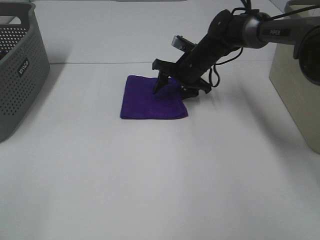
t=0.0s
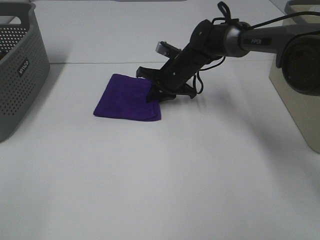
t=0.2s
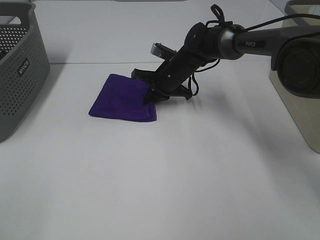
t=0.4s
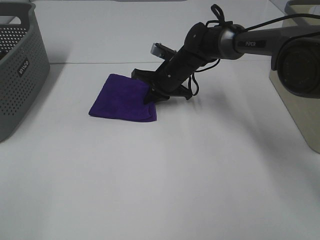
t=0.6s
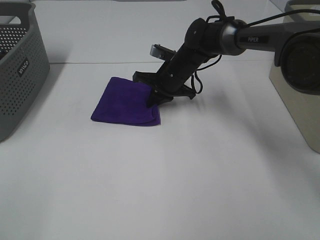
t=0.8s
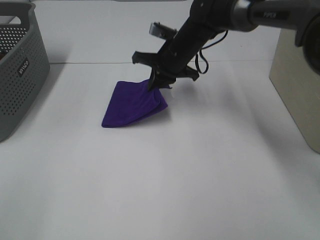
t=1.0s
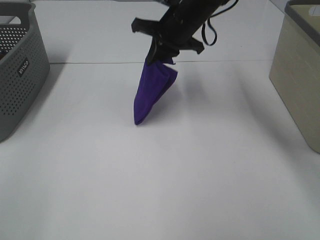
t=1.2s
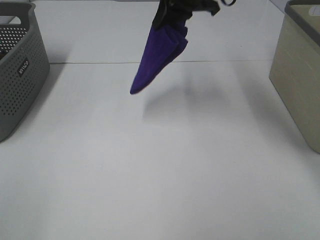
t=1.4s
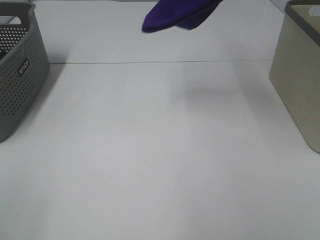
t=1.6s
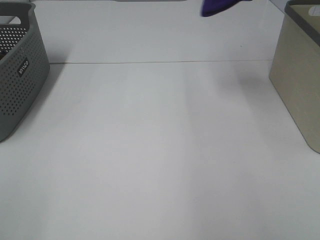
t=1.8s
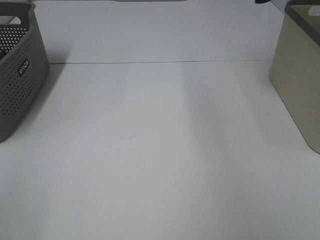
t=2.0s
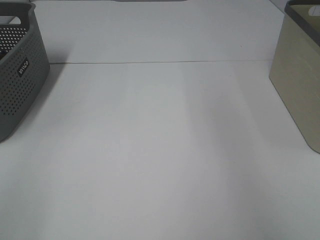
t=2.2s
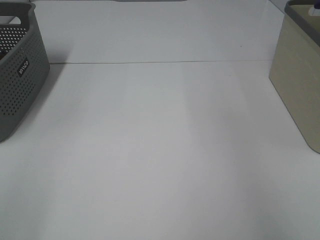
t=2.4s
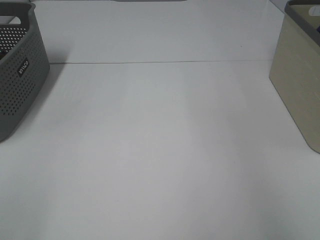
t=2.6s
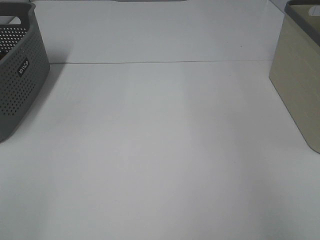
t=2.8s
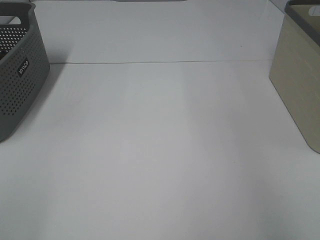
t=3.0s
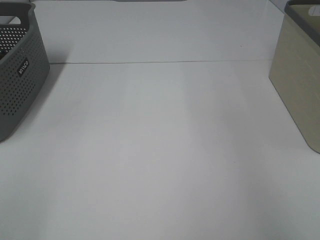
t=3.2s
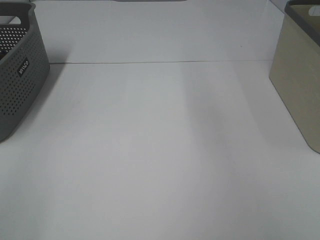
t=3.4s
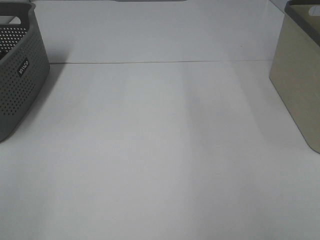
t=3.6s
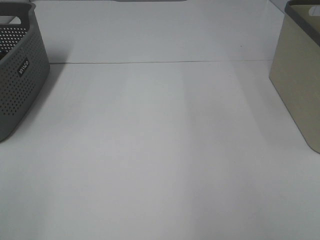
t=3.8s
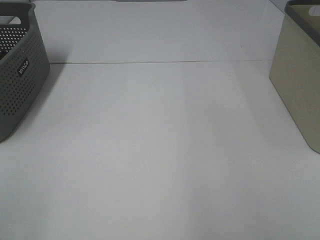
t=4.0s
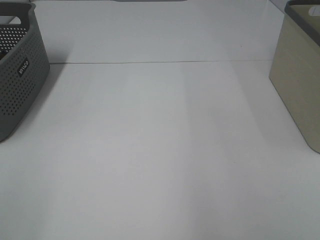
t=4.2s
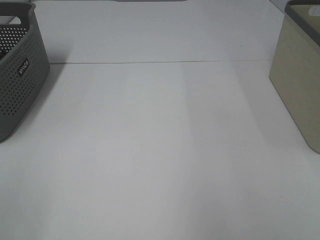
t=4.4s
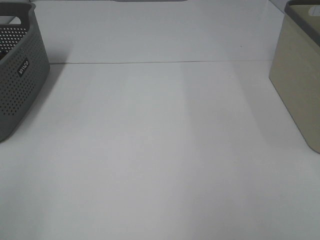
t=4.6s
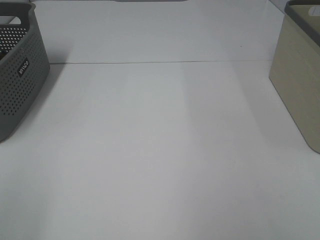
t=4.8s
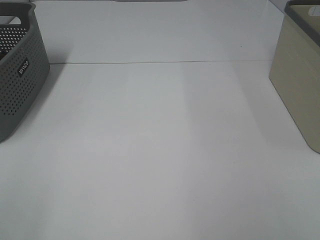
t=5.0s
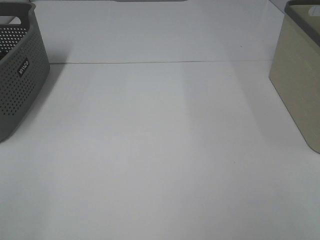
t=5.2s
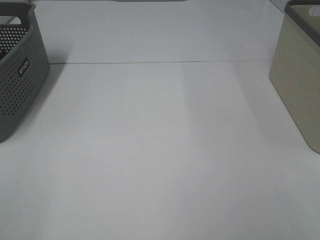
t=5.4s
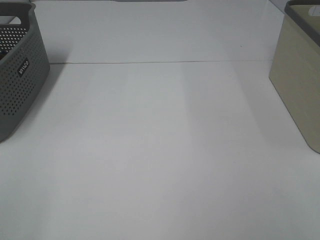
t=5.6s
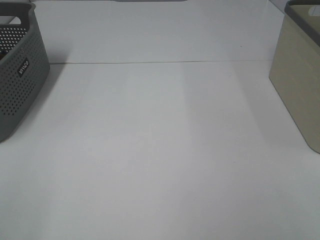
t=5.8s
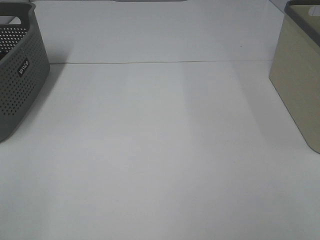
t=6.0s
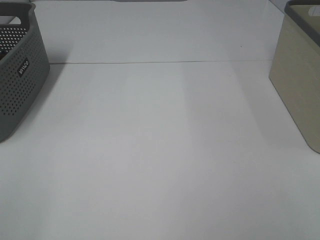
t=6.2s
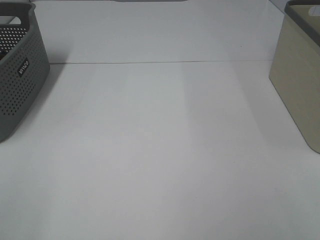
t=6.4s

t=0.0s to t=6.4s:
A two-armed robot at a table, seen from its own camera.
Step, t=0.4s to t=3.0s: Right hand: place the purple towel in right basket.
t=0.0s to t=1.6s: The right gripper travels upward by about 30 cm, and closes its fingers.
t=1.6s to t=3.2s: The right gripper moves to the right, about 25 cm, and opens.

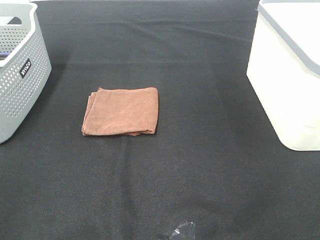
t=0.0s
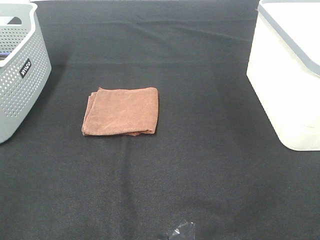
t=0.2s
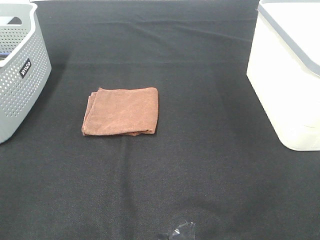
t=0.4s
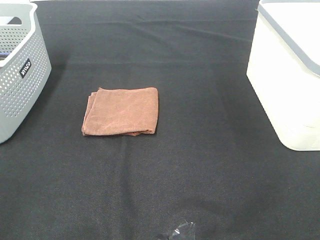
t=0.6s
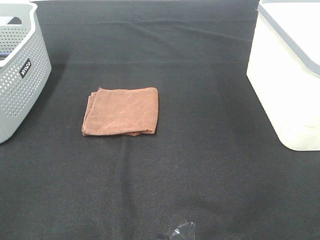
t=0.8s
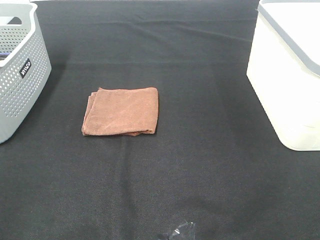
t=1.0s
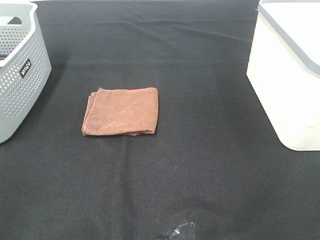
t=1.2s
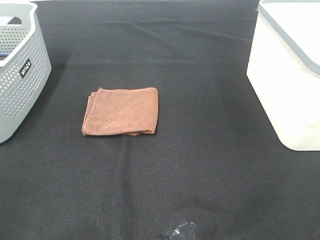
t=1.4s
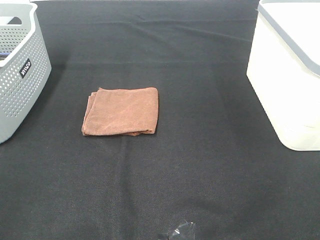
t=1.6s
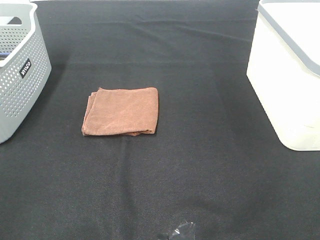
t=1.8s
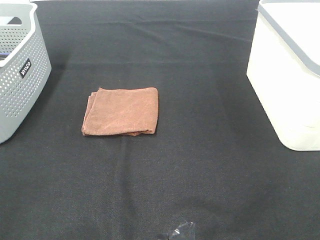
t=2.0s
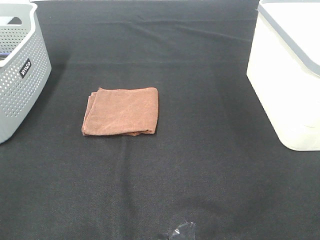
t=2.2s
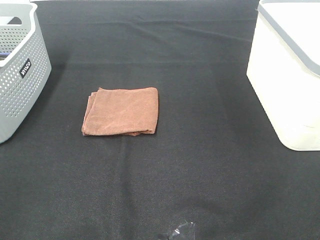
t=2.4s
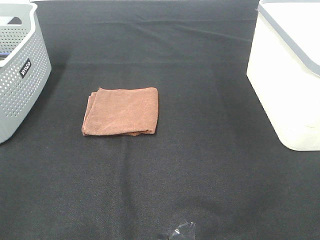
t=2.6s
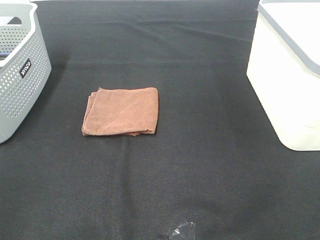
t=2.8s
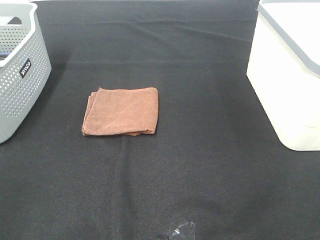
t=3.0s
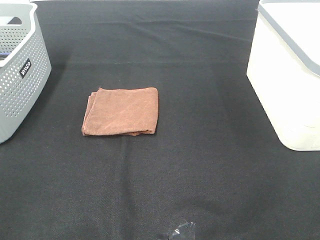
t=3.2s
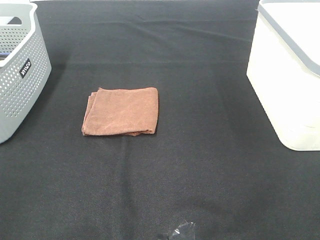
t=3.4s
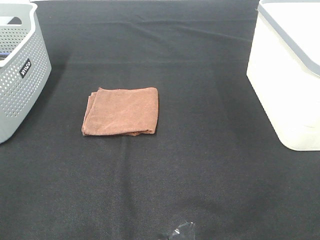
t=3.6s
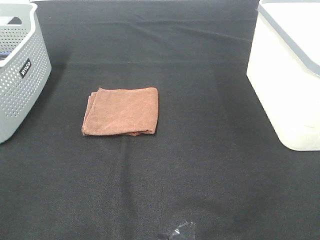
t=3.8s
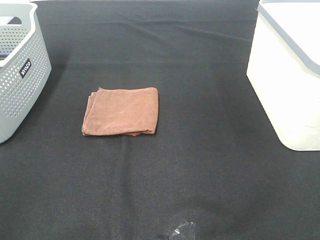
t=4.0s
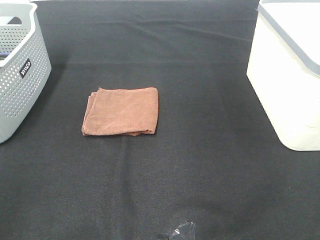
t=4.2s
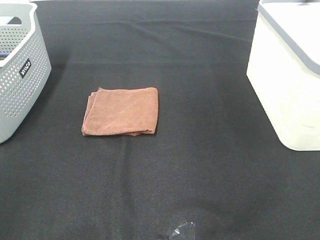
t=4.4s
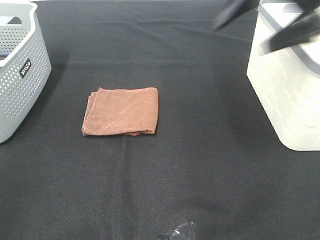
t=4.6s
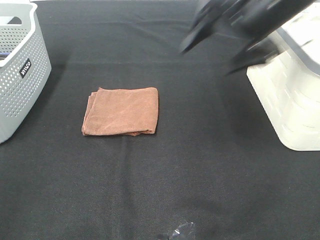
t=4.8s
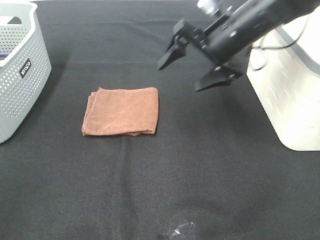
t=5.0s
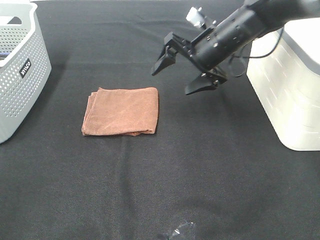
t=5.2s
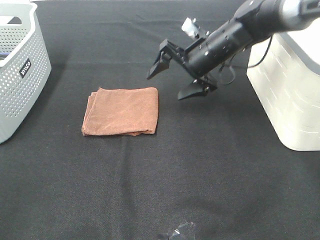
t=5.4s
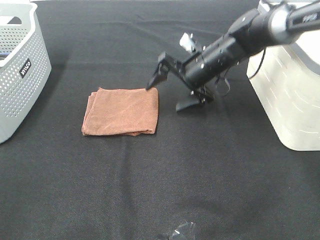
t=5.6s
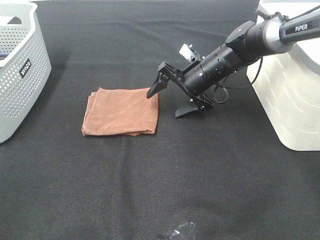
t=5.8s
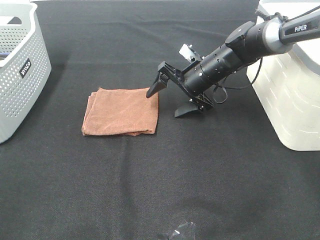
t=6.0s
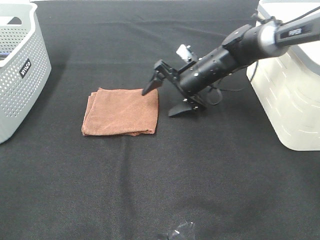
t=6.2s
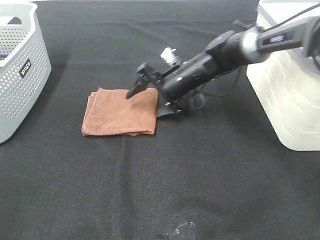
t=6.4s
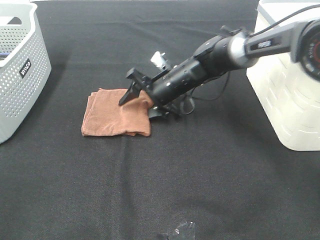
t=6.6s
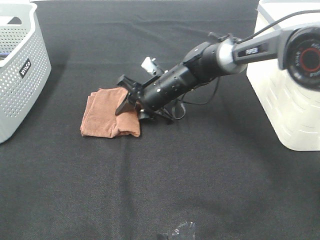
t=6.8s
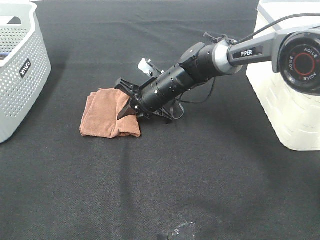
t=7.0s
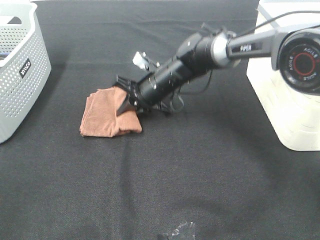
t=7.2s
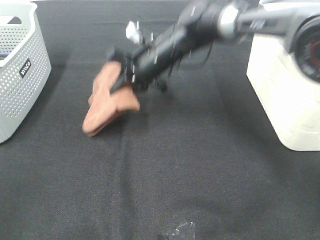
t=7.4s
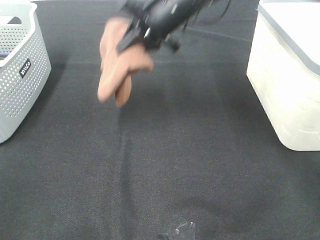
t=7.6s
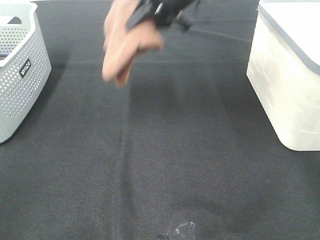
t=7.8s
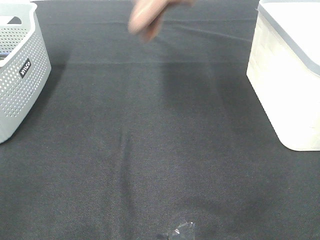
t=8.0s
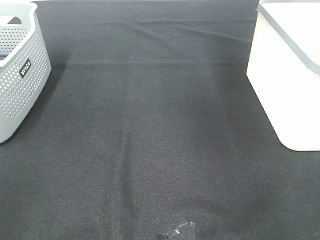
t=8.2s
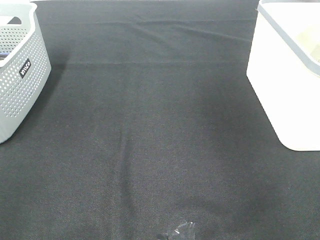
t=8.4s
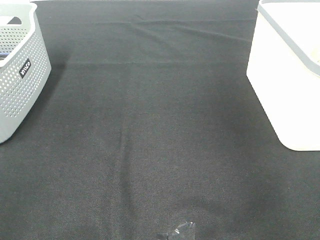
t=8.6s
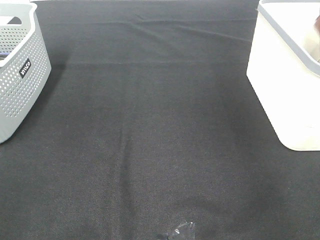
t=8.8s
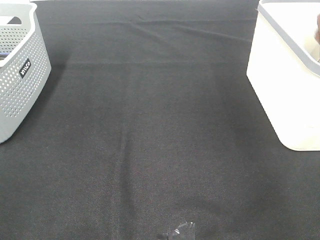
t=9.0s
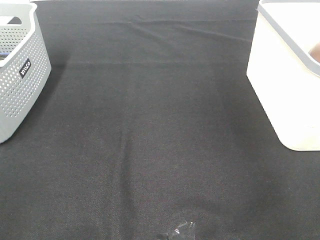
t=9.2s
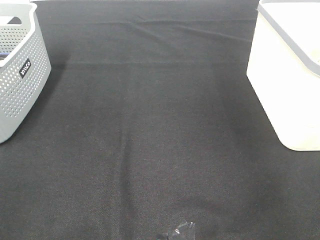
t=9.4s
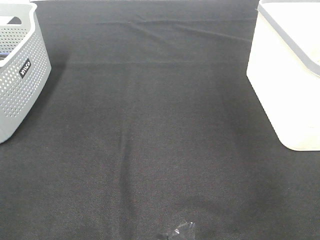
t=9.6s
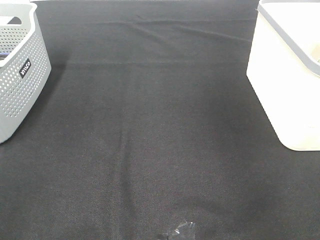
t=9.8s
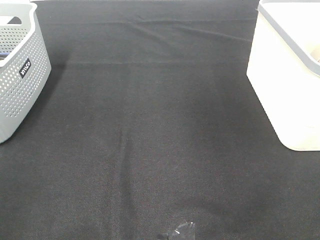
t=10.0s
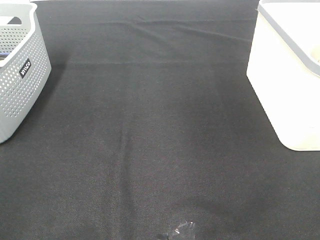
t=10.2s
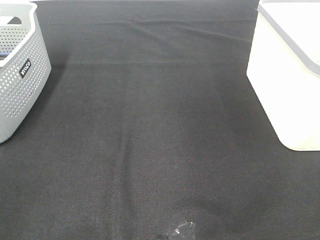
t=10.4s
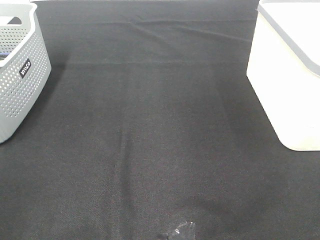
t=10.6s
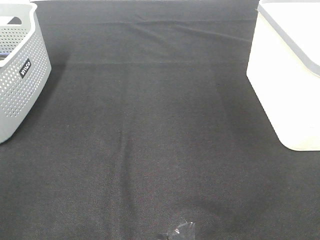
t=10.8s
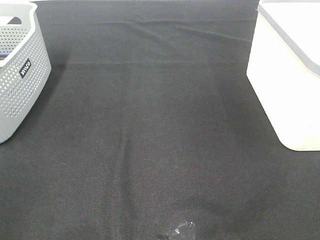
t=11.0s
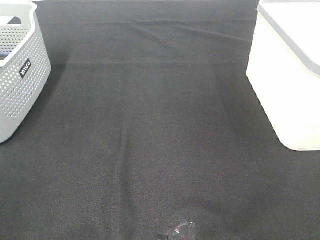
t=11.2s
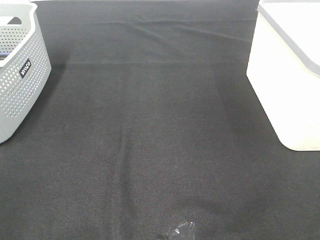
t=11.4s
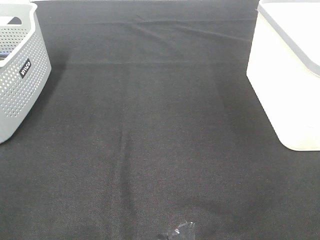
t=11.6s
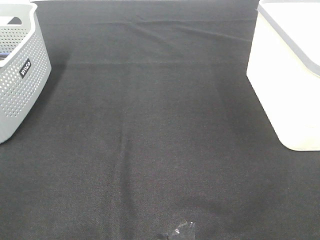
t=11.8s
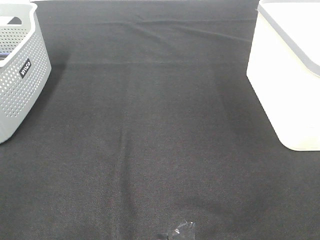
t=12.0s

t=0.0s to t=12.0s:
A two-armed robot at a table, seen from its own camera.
Step, t=0.0s to t=7.2s: Right hand: grab the folded brown towel.
Step, t=7.4s to t=9.2s: Right hand: place the brown towel in right basket.
t=0.0s to t=1.6s: Both grippers stay about where they are.
t=4.4s to t=6.0s: The right gripper moves downward, to the left and forward, approximately 35 cm.
t=6.0s to t=7.6s: The right gripper is displaced upward and to the left by about 15 cm, and closes.
t=7.6s to t=9.0s: The right gripper goes some 35 cm to the right, and opens.

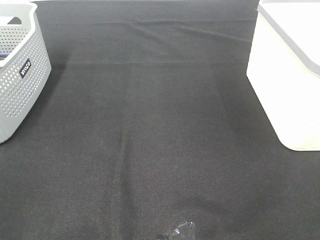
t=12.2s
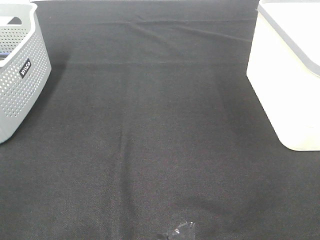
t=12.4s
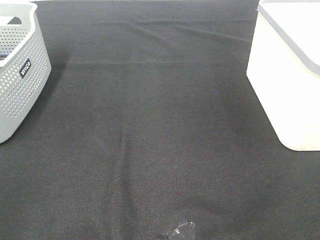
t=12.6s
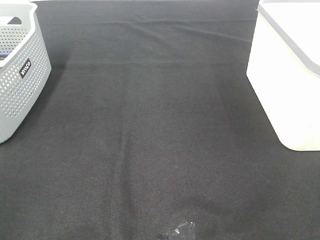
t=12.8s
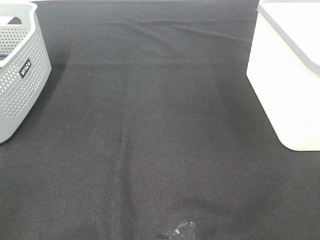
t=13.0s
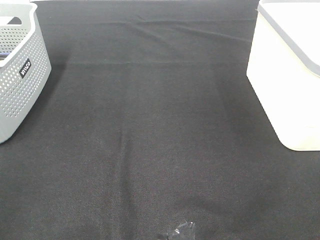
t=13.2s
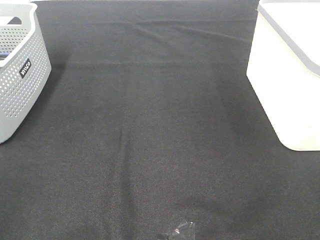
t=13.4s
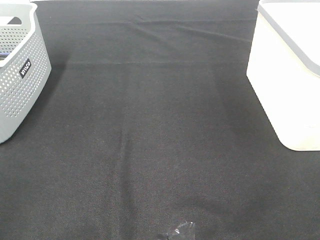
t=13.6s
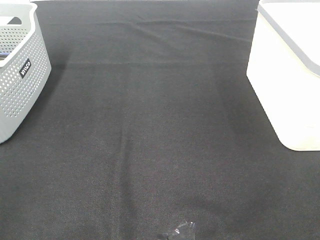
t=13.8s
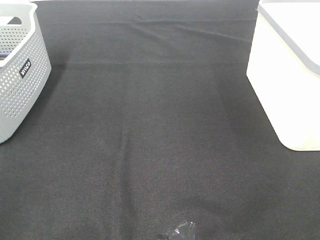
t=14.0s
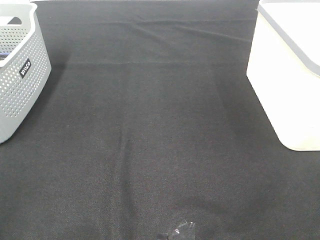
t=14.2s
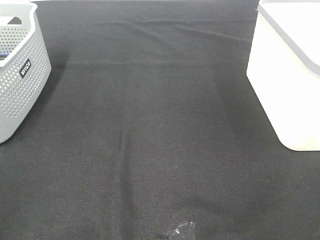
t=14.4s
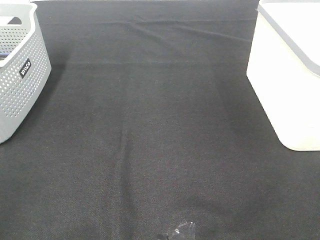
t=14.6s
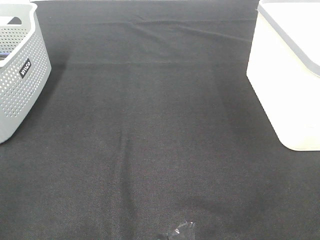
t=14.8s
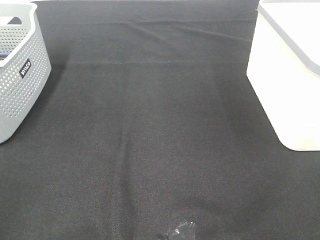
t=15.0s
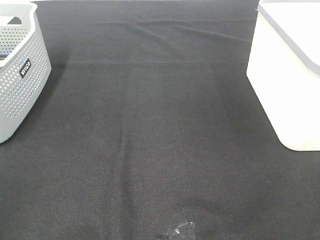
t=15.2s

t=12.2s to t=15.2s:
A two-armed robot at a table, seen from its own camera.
t=12.2s to t=15.2s: Neither gripper changes place.

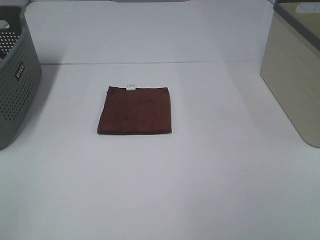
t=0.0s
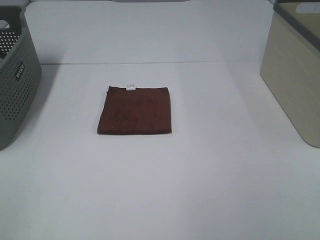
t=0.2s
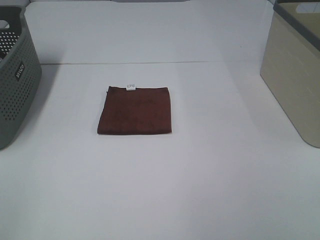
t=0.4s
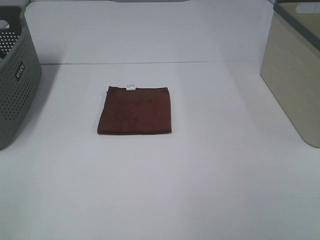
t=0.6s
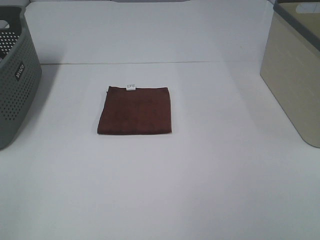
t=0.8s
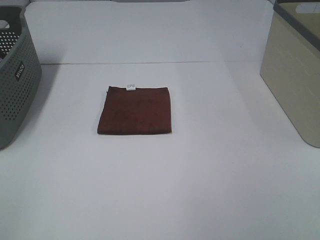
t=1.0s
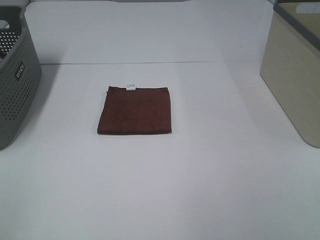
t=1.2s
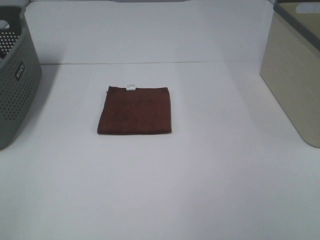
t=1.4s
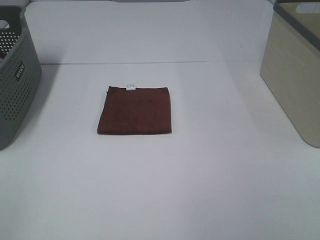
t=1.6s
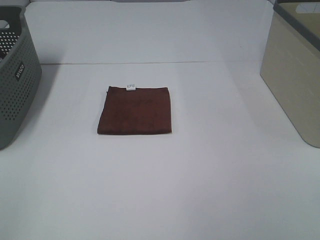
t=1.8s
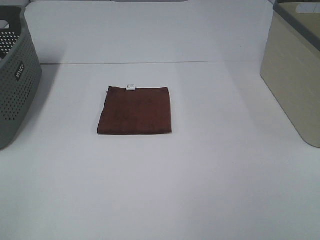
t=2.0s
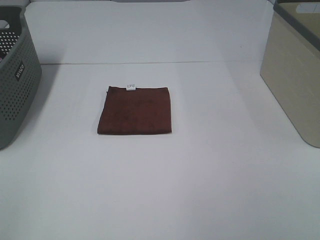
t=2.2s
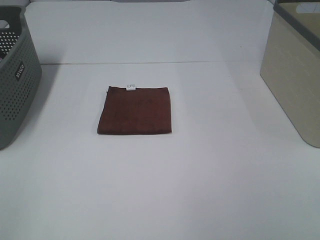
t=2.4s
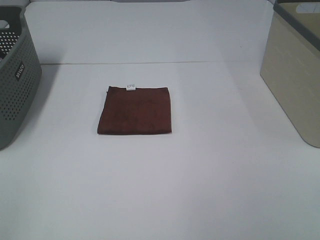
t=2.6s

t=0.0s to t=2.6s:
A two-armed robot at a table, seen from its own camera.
t=0.0s to t=2.6s: Both grippers stay put.
